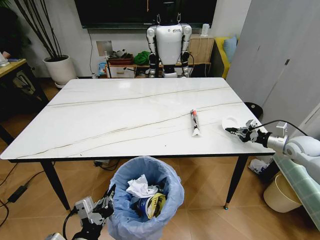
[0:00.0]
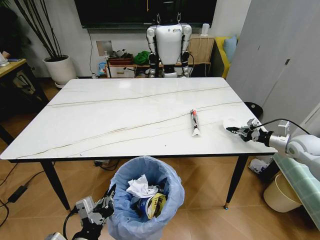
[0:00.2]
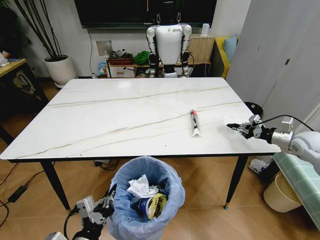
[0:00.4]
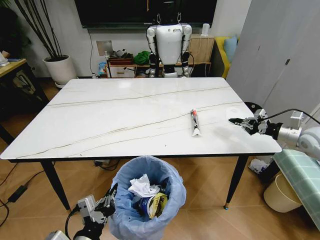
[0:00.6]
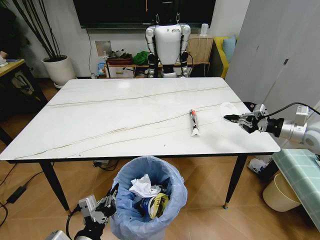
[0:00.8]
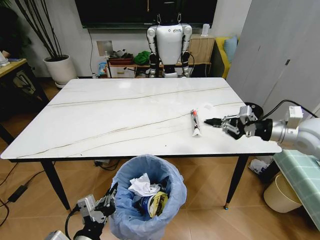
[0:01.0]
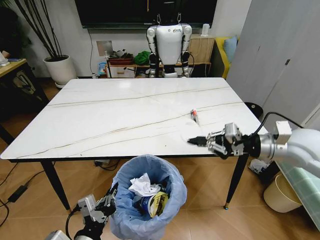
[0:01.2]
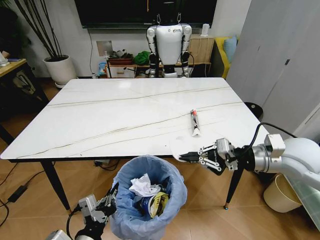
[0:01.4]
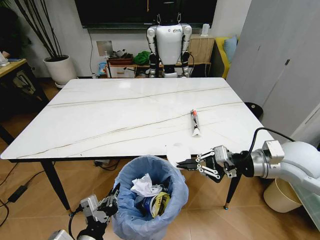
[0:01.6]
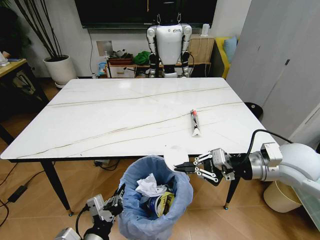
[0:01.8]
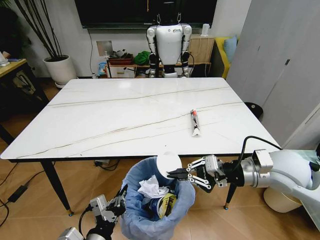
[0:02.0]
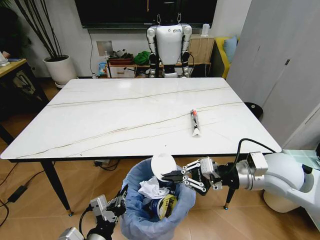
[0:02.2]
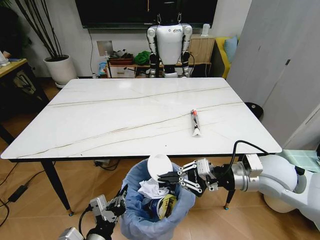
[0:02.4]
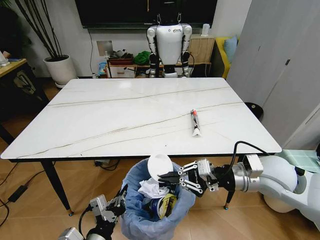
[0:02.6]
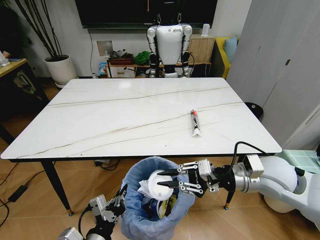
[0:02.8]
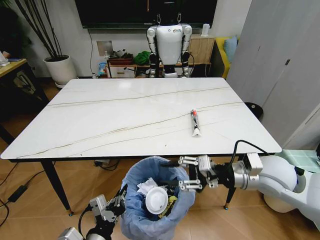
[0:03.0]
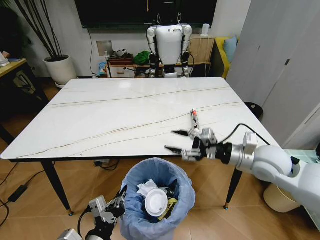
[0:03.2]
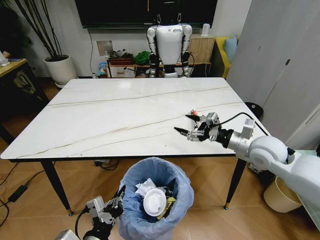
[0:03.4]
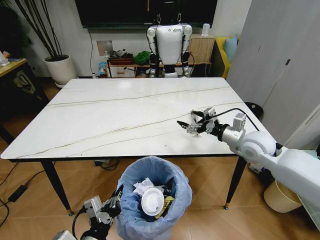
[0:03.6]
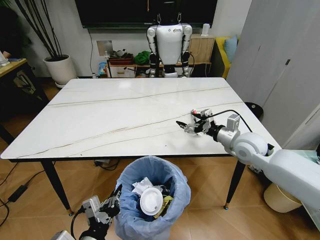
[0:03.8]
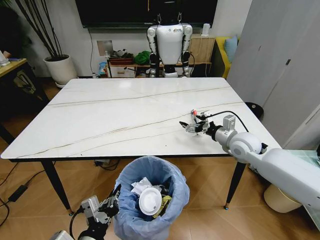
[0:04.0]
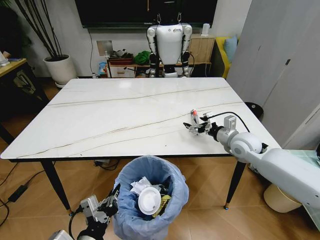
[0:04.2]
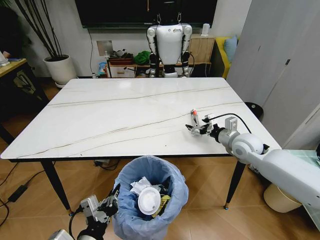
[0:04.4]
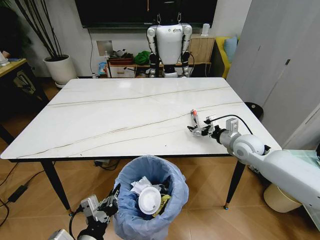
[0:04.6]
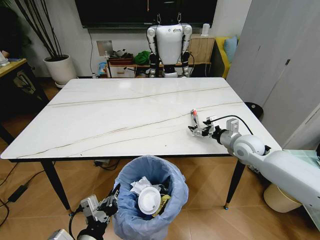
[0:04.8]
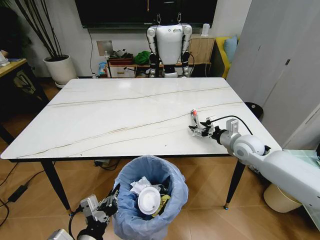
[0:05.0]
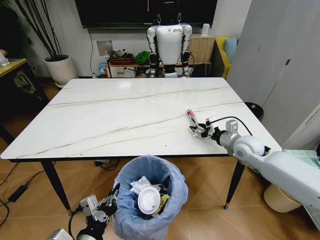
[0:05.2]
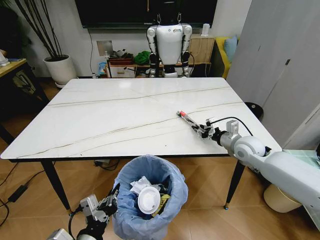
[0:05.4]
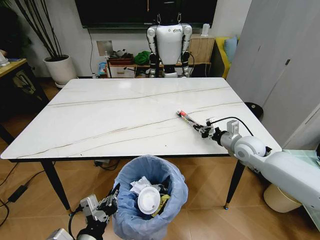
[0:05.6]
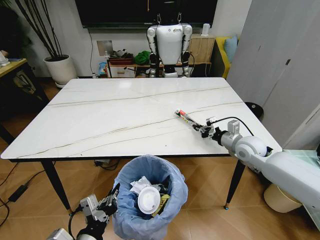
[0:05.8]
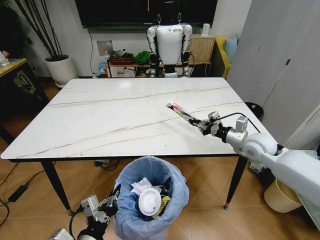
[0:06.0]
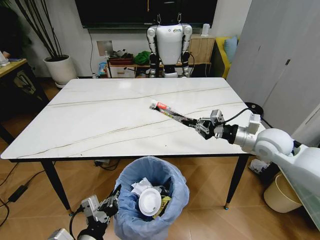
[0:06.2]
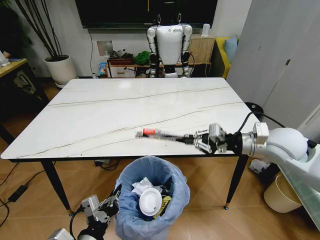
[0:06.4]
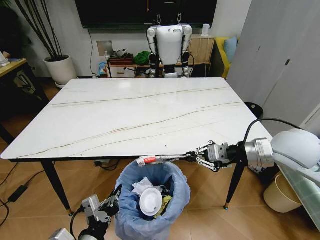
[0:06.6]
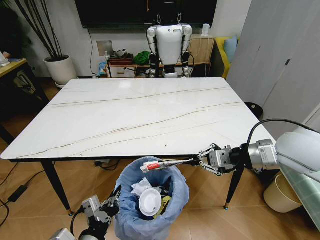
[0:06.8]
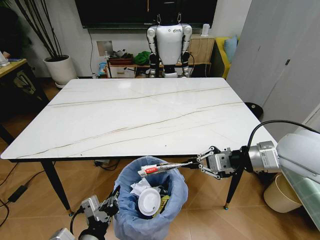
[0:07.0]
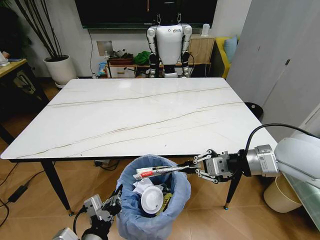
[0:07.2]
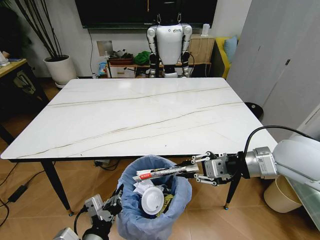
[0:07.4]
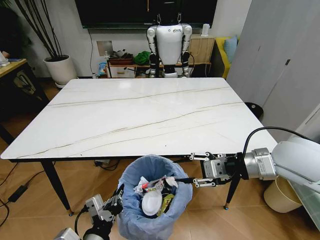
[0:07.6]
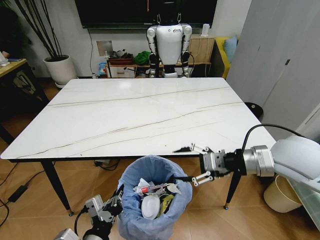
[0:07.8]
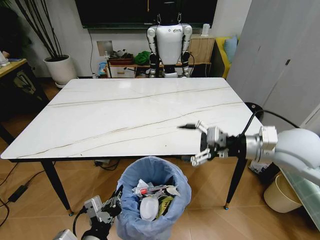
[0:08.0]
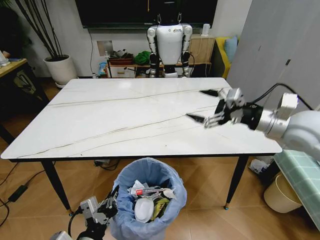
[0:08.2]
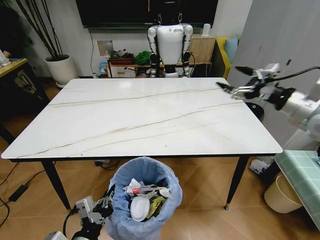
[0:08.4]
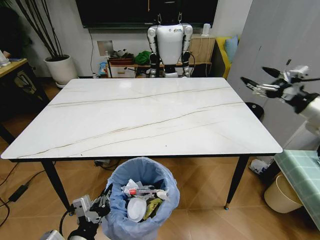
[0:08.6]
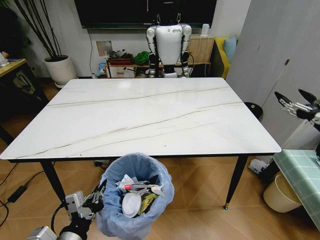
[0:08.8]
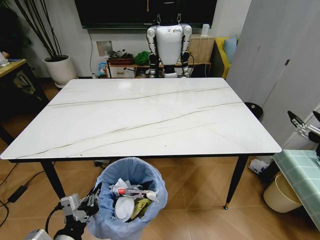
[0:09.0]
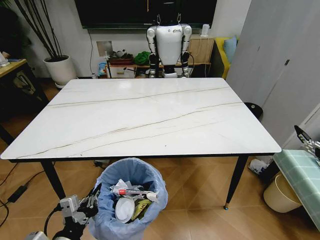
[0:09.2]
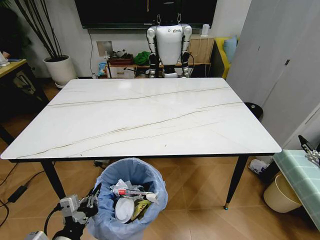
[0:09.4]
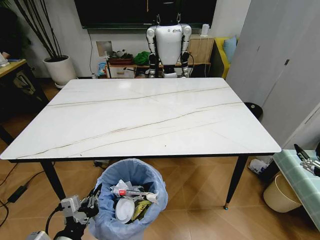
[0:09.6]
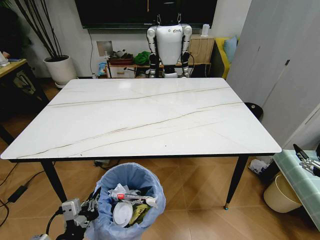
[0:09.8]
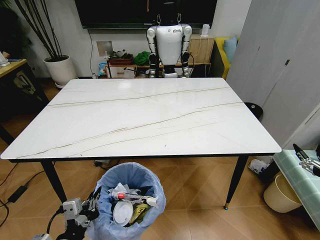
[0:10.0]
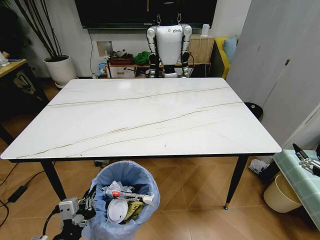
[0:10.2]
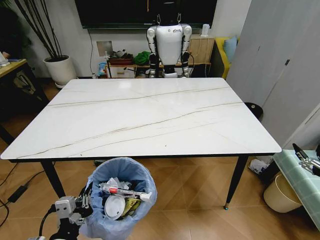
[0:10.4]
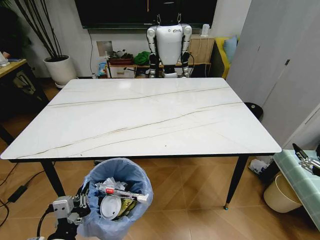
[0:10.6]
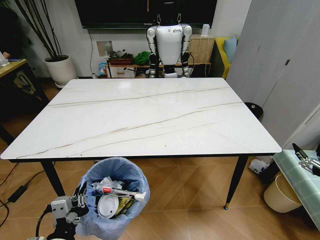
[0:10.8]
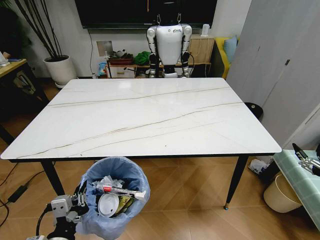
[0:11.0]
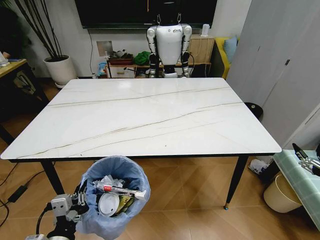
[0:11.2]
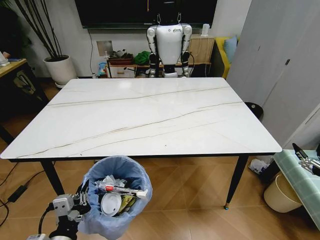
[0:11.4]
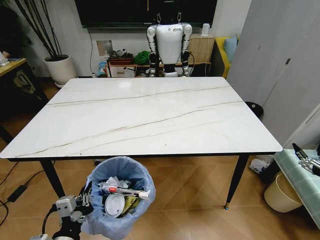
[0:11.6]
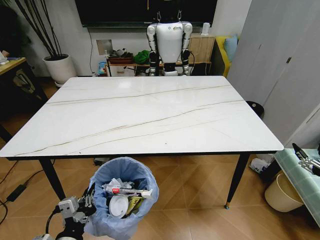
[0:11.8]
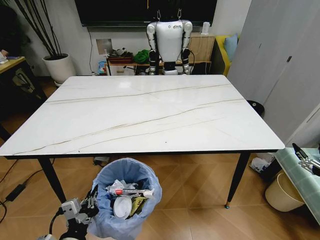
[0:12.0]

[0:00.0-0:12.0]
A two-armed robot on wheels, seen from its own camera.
Task of the whole recording: Pick up the trash bin and place the trash from the table into it.
0:00.0 to 0:01.6: The right gripper moves to the left, backward and upward, roughly 25 cm.
0:01.6 to 0:03.0: The right gripper shifts by approximately 5 cm, and opens its fingers.
0:03.0 to 0:04.4: The right gripper travels forward and downward by approximately 15 cm, and opens its fingers.
0:04.4 to 0:06.0: The right gripper closes up.
0:06.0 to 0:07.6: The right gripper is displaced backward and upward by about 15 cm, and opens up.
0:07.6 to 0:09.0: The right gripper is displaced to the right by about 20 cm, and opens. The left gripper goes roughly 5 cm to the left.
0:09.0 to 0:10.4: The right gripper goes roughly 10 cm downward and backward.
0:10.4 to 0:12.0: There are only small adjustments of the grippers.

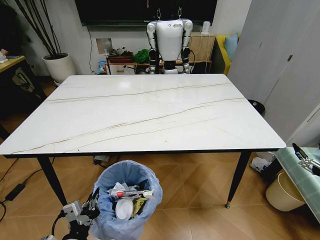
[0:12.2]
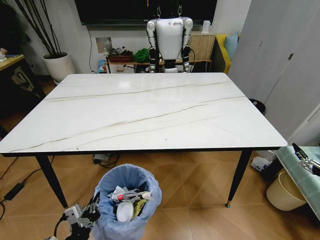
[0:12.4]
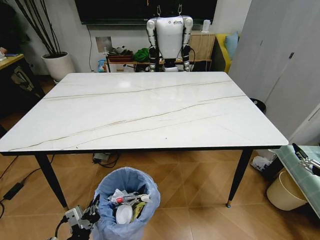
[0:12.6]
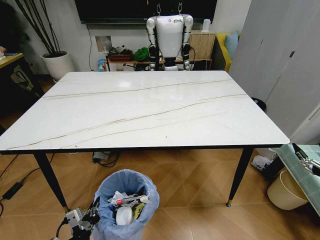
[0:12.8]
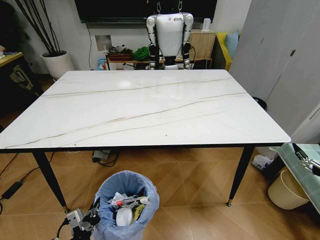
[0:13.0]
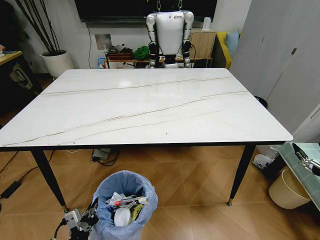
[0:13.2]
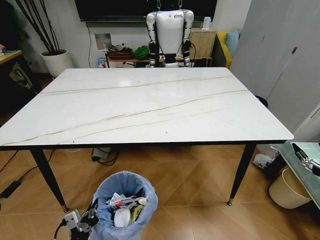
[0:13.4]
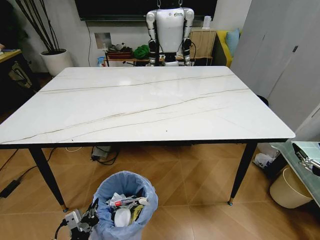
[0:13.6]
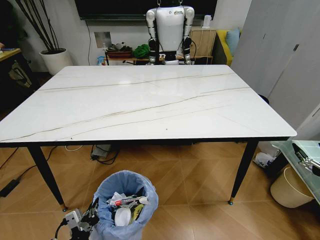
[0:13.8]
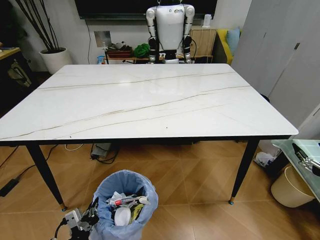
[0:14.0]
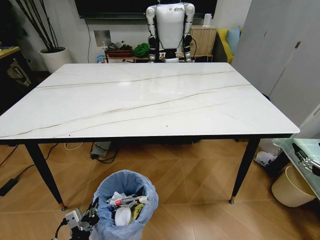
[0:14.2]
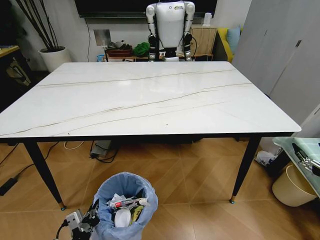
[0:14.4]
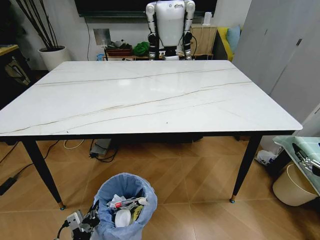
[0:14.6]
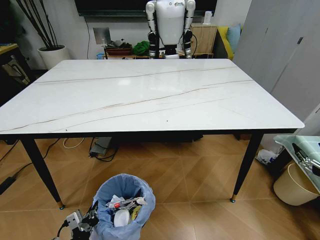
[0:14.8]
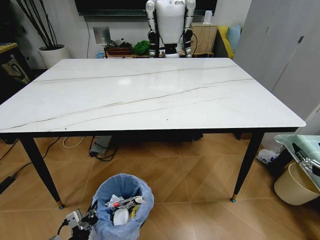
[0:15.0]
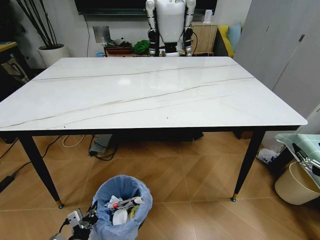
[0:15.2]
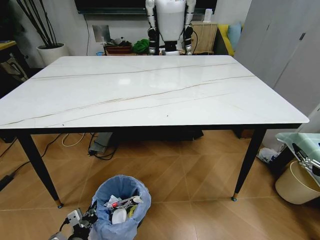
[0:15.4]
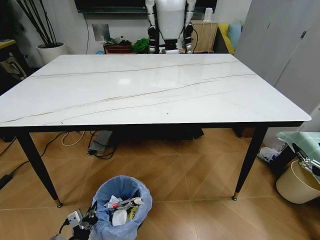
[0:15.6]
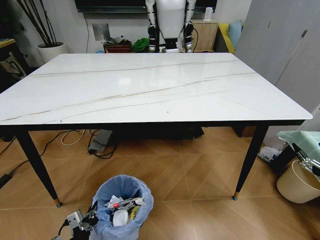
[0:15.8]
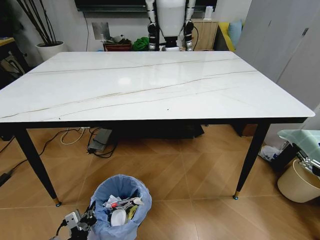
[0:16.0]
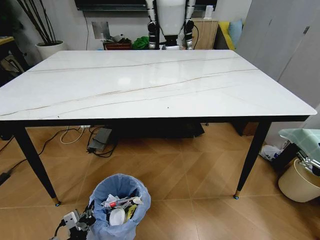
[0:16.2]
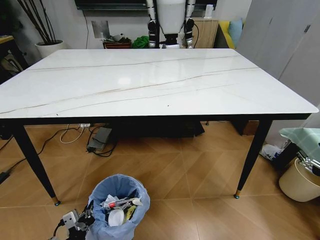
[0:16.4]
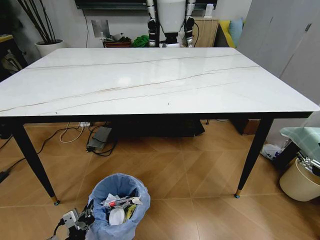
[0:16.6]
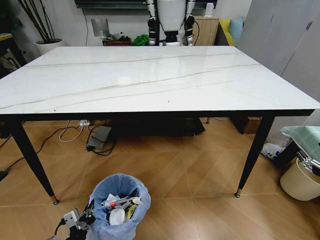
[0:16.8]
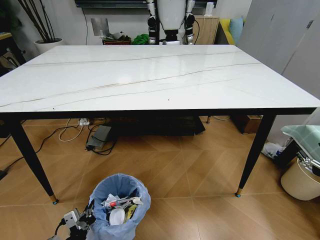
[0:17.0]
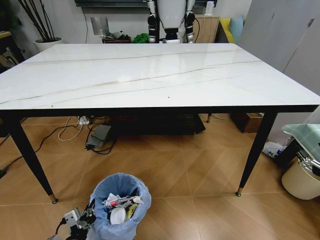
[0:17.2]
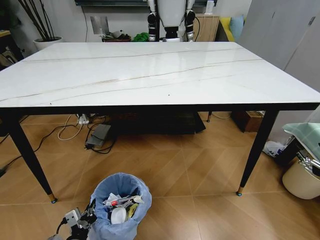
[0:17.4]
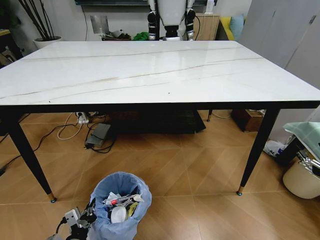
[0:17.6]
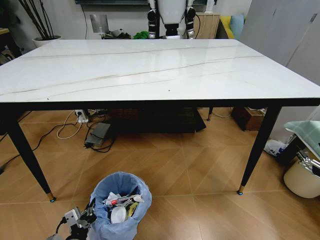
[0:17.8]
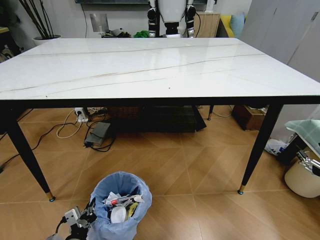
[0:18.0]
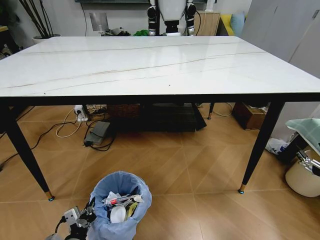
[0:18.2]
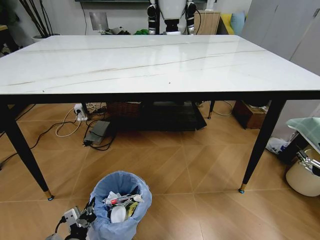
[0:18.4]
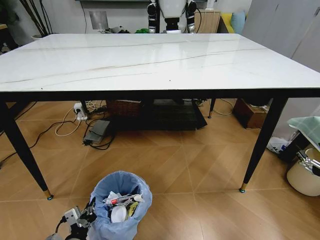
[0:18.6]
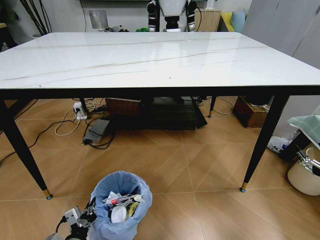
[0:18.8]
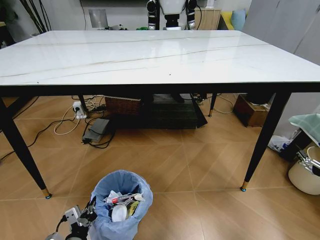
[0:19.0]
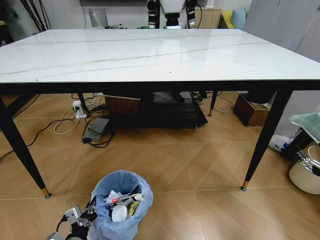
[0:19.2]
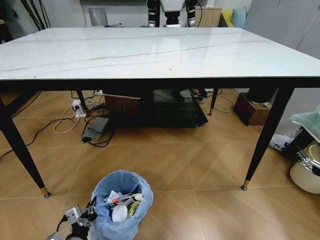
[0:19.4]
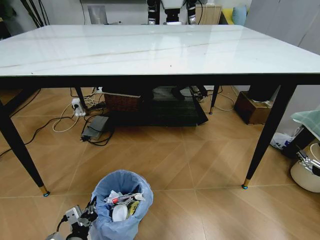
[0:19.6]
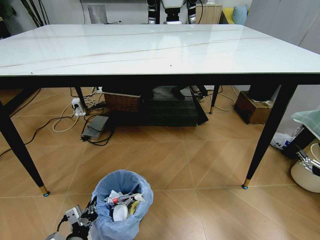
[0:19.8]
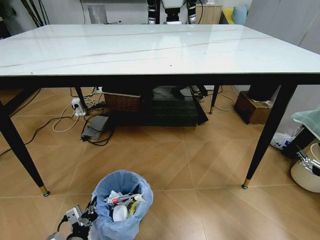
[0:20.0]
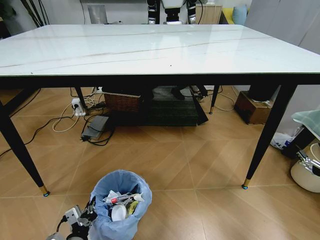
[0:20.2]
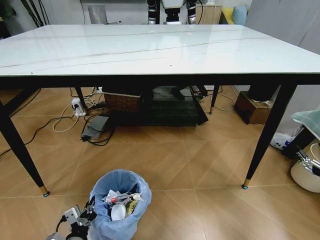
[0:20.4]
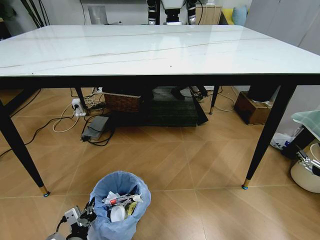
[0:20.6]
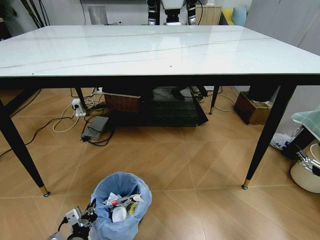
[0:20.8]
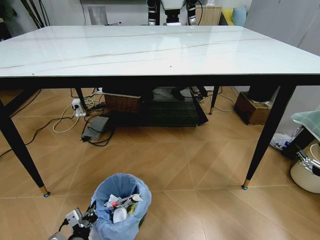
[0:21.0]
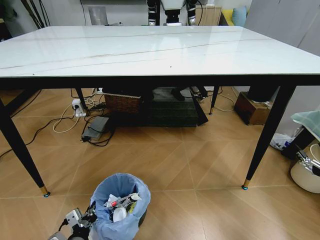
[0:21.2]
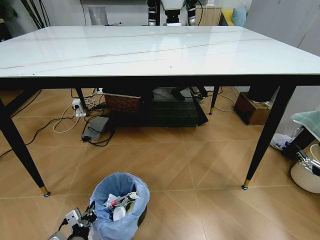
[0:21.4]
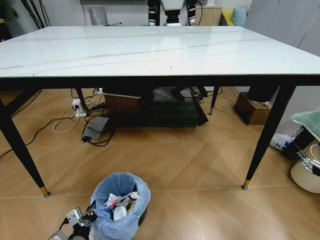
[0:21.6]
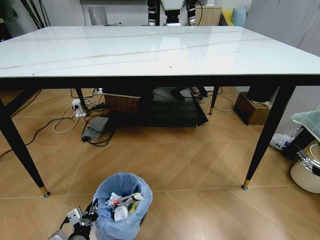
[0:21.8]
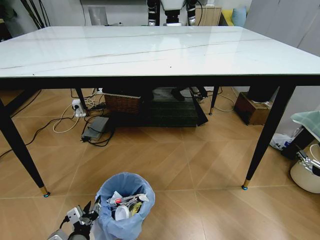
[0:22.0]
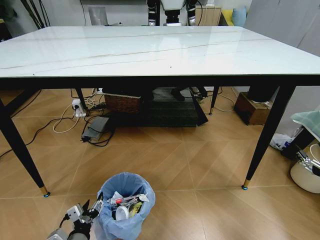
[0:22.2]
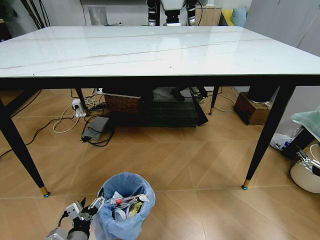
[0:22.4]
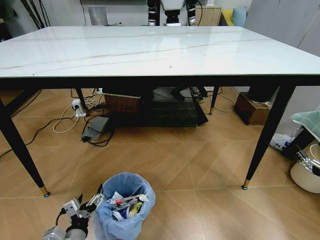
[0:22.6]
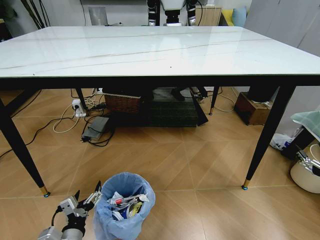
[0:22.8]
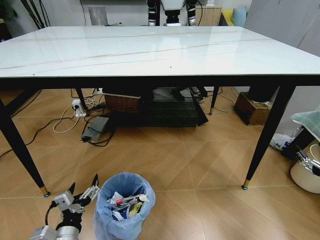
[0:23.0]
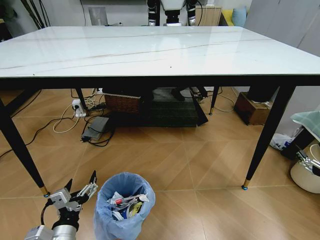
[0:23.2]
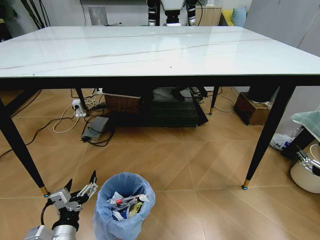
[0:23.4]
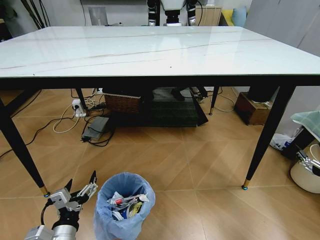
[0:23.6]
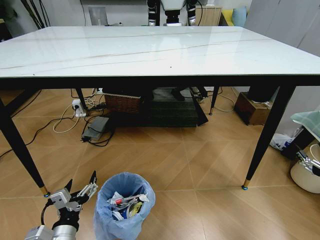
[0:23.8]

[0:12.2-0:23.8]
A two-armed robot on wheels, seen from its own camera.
Task of the whole recording: Pick up the trash bin and place the trash from the table into it.
0:19.4 to 0:21.0: The grippers make only small movements.
0:21.0 to 0:22.4: The left gripper opens.
0:22.4 to 0:23.8: The left gripper goes roughly 5 cm upward.
